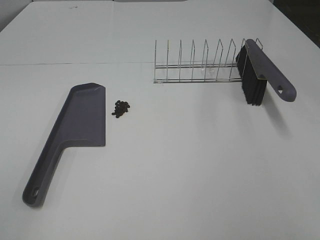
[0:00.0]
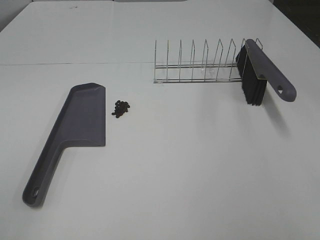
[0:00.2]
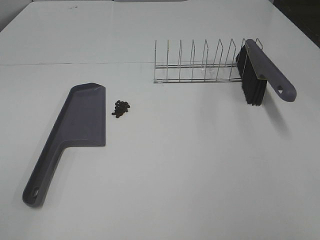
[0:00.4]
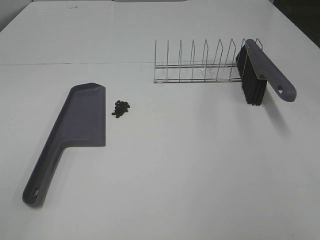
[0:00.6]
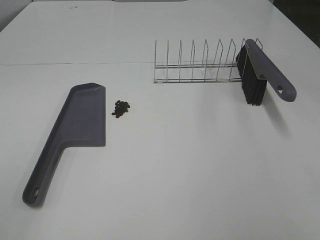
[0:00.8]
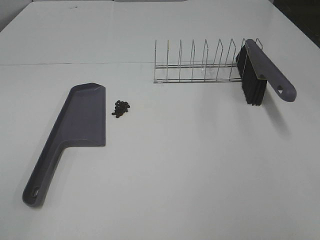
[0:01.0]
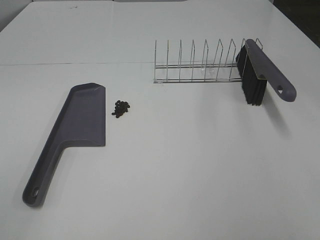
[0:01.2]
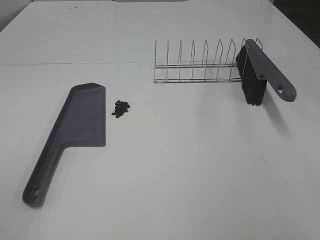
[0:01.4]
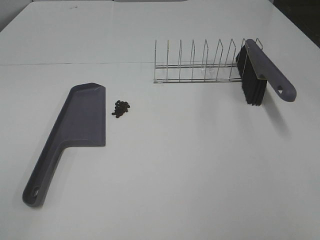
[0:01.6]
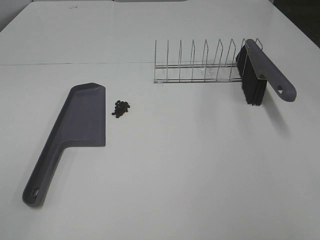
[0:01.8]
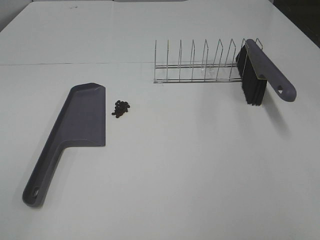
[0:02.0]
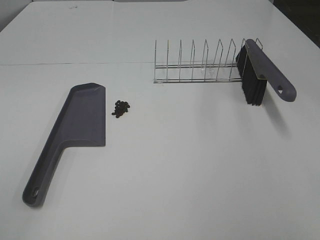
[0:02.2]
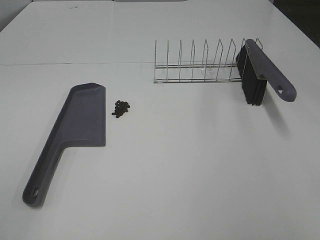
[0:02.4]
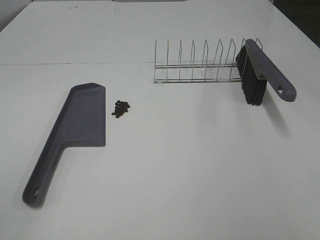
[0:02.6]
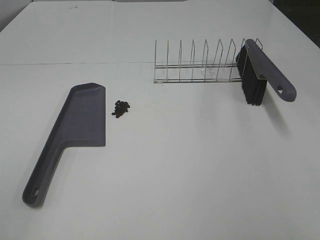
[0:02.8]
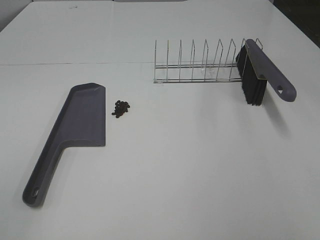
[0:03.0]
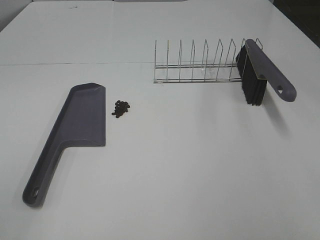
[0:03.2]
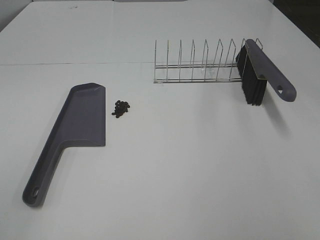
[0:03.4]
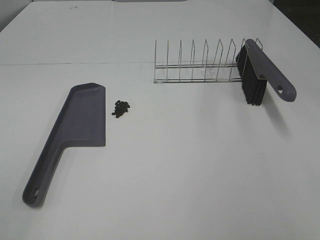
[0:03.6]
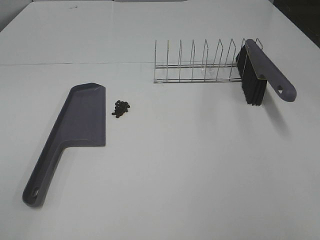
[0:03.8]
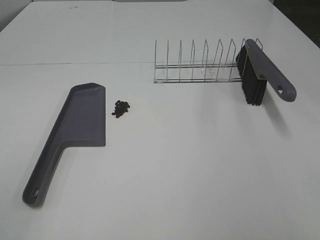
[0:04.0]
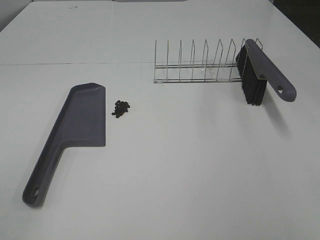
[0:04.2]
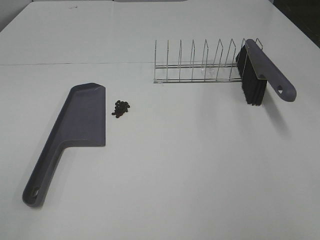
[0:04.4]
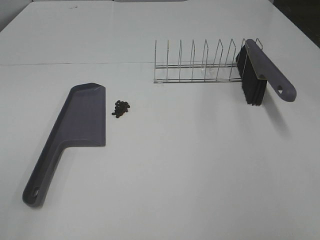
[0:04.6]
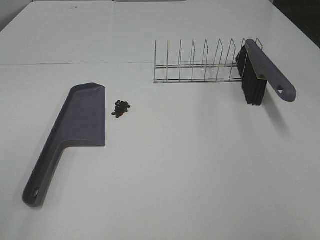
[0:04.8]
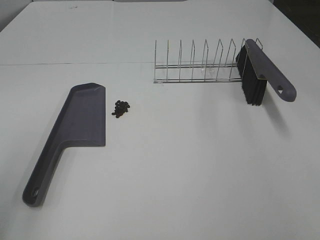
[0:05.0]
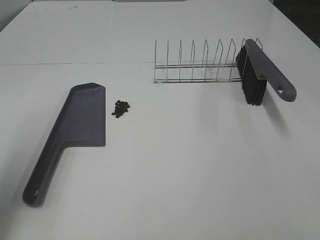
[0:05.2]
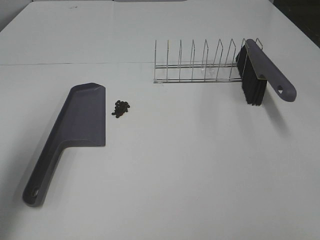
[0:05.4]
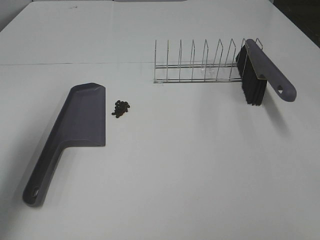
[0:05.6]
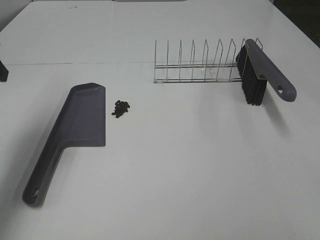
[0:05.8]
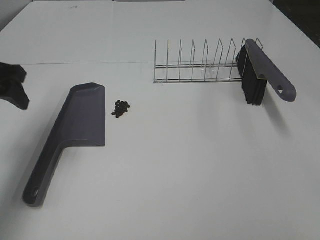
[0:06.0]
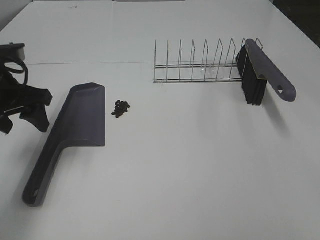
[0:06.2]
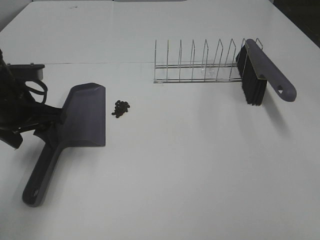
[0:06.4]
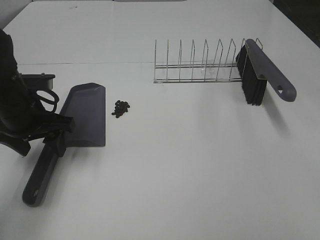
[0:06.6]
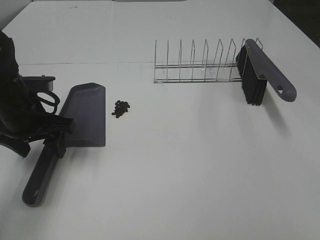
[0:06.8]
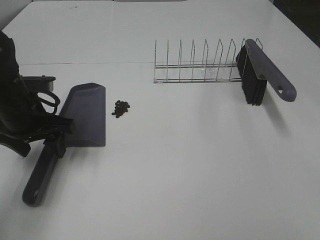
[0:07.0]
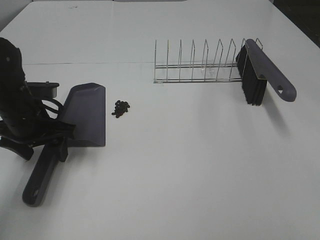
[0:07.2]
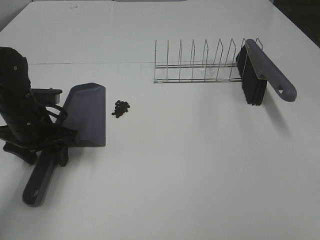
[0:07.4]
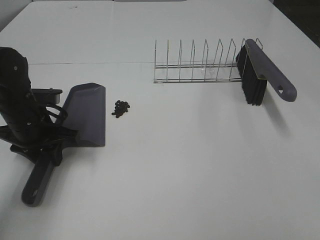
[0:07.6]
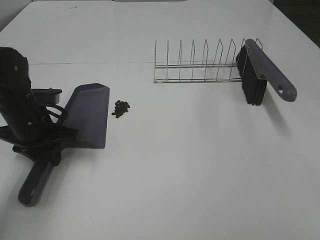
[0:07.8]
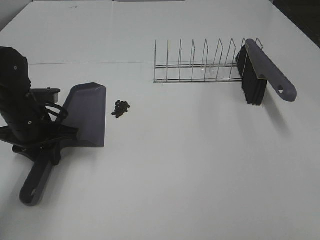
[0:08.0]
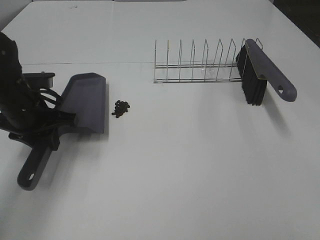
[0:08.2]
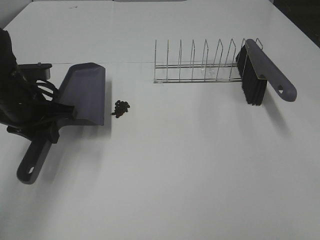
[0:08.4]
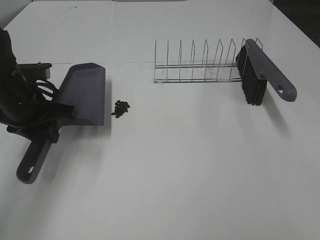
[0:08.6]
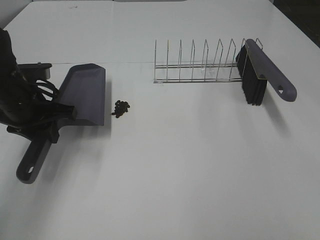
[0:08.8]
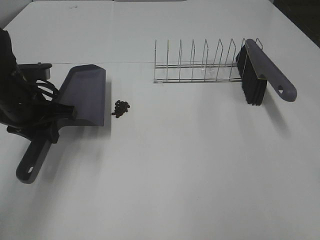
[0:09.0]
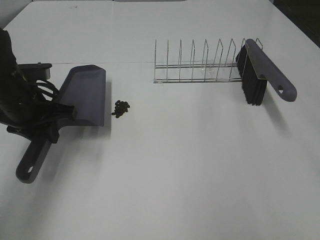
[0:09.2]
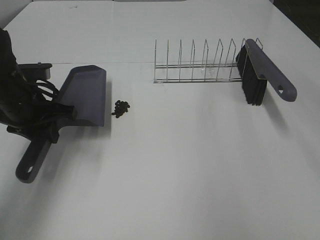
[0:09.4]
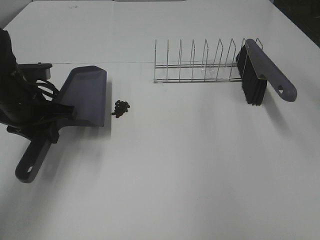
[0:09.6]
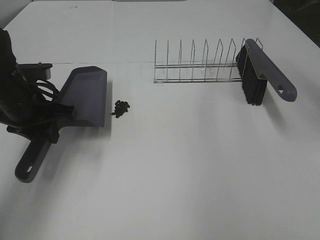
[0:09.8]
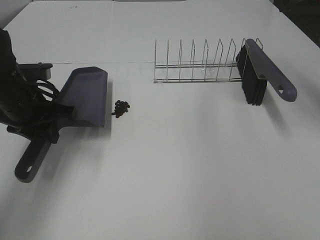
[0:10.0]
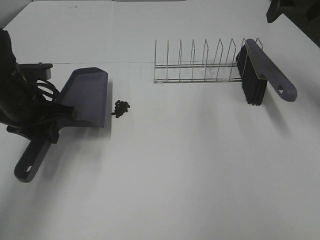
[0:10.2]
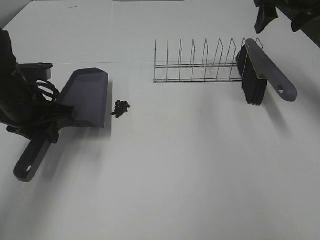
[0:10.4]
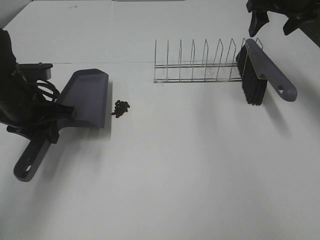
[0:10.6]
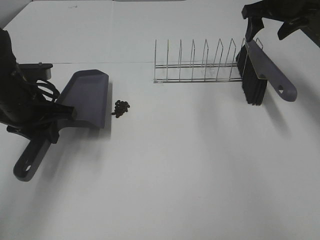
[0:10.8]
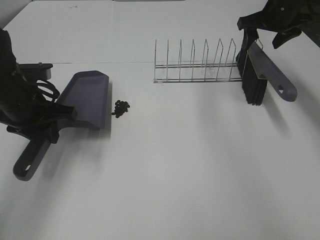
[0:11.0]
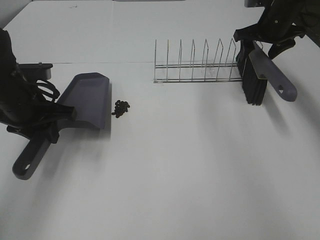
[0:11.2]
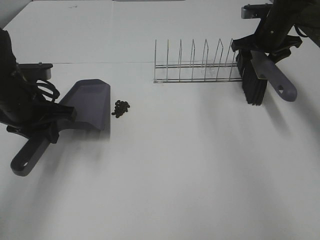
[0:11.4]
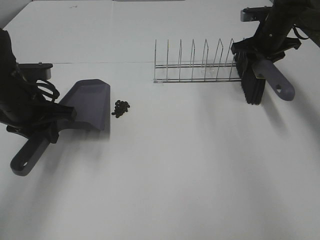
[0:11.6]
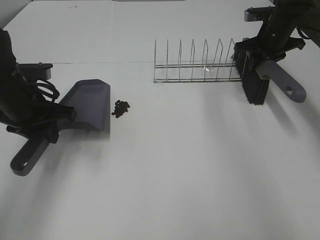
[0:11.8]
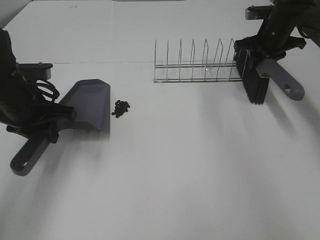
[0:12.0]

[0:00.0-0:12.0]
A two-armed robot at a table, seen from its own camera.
Task of the whole recording: Sweep Coffee Bean.
Step, 0:00.0 to 0:07.8: Left hand: grab the dustpan.
Step, 0:08.8 to 0:11.8: Right hand:grab the broom.
0:00.0 to 0:04.4: Neither gripper changes place.
0:04.4 to 0:06.0: The left gripper moves forward, roughly 30 cm.
0:06.0 to 0:07.6: The left gripper travels downward and to the right by approximately 15 cm, and closes up.
0:09.0 to 0:10.4: The right gripper shifts about 40 cm forward.
0:10.4 to 0:12.0: The right gripper is displaced downward and forward by about 15 cm, and closes.

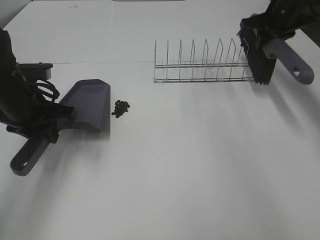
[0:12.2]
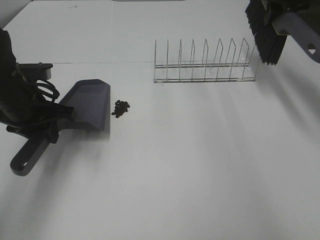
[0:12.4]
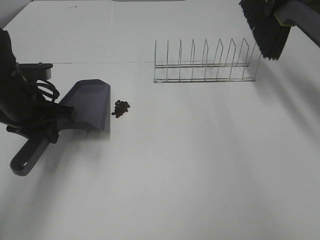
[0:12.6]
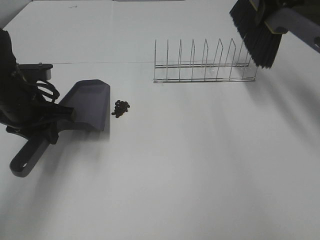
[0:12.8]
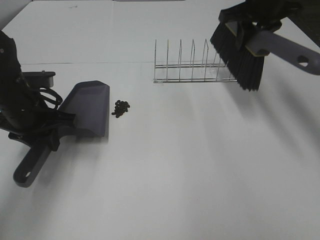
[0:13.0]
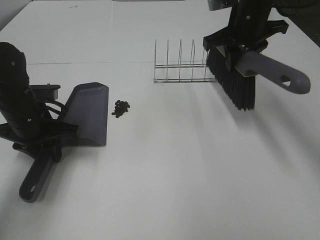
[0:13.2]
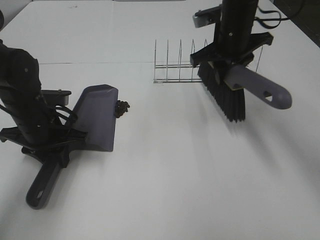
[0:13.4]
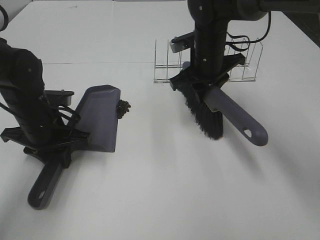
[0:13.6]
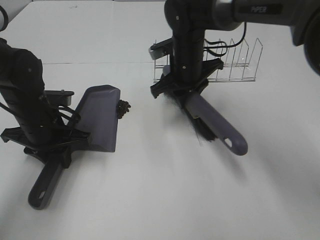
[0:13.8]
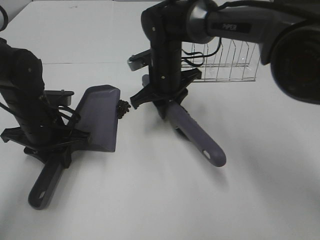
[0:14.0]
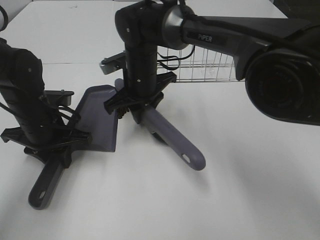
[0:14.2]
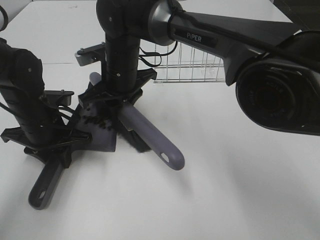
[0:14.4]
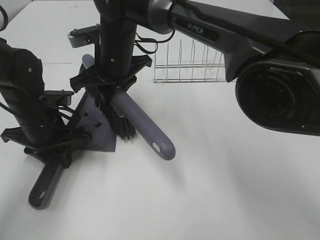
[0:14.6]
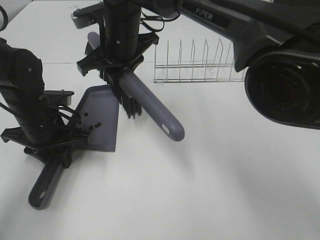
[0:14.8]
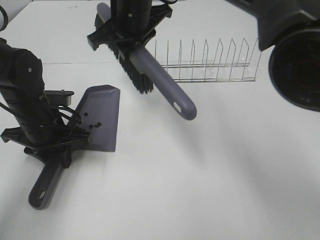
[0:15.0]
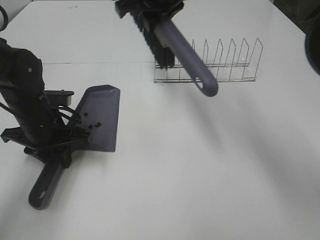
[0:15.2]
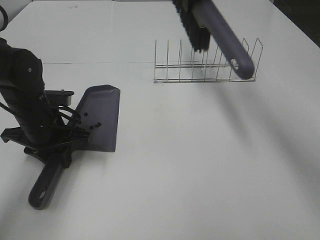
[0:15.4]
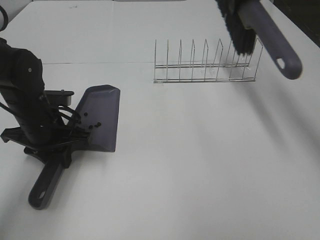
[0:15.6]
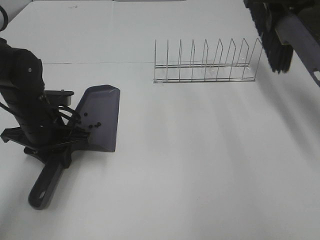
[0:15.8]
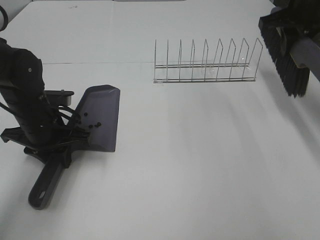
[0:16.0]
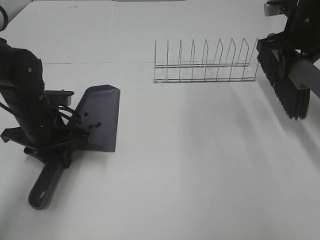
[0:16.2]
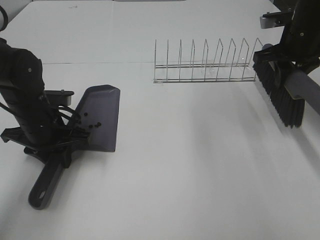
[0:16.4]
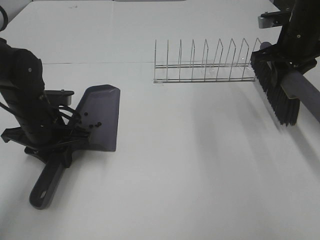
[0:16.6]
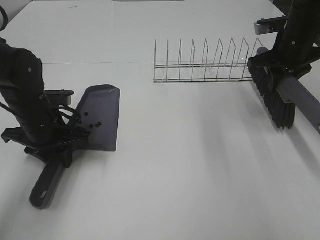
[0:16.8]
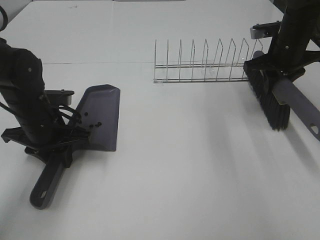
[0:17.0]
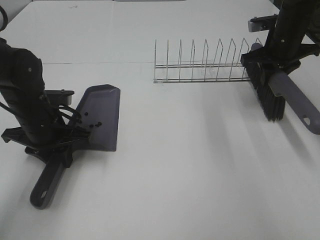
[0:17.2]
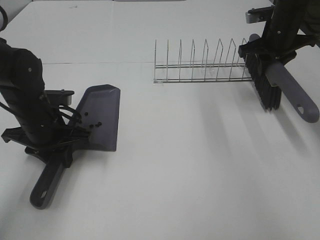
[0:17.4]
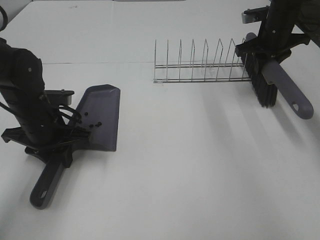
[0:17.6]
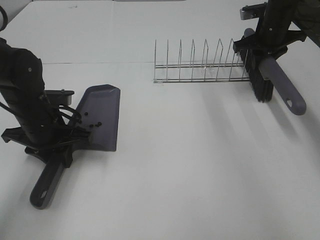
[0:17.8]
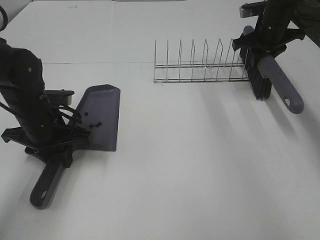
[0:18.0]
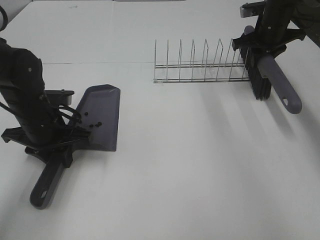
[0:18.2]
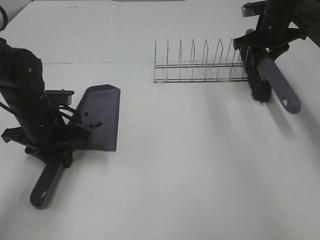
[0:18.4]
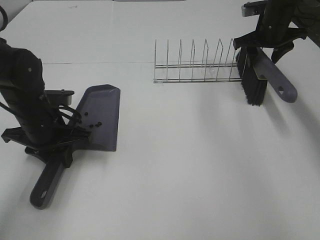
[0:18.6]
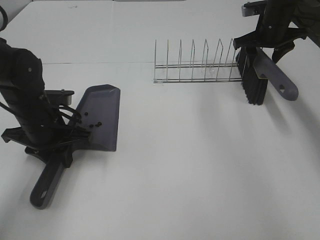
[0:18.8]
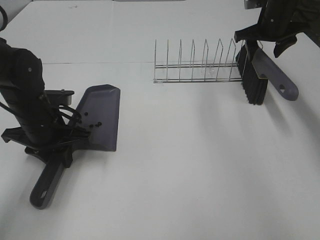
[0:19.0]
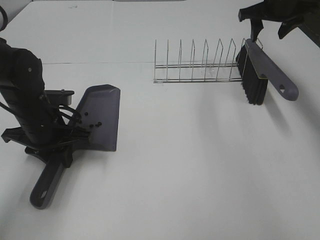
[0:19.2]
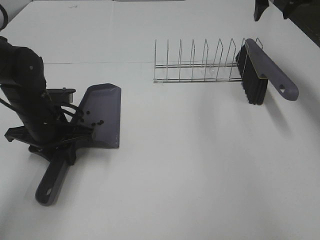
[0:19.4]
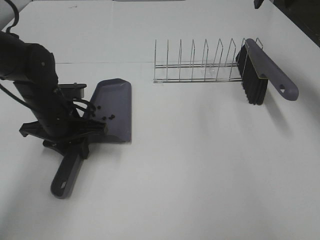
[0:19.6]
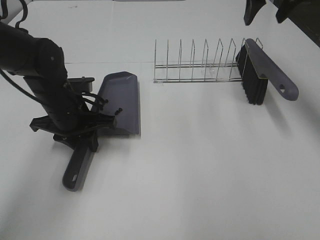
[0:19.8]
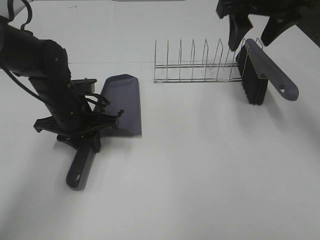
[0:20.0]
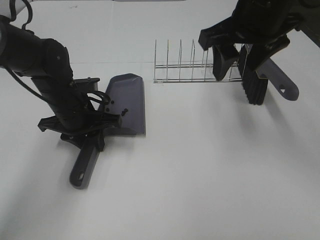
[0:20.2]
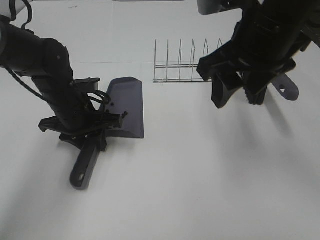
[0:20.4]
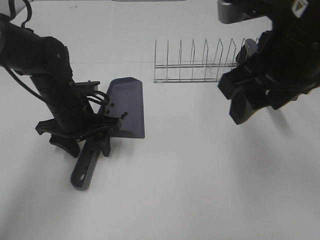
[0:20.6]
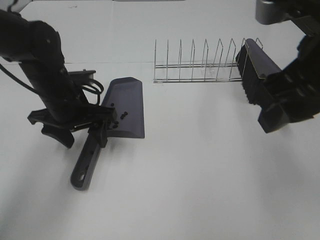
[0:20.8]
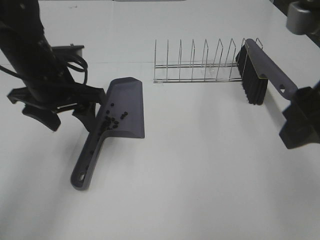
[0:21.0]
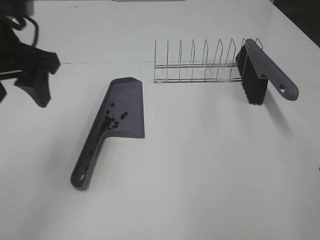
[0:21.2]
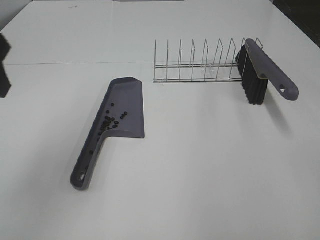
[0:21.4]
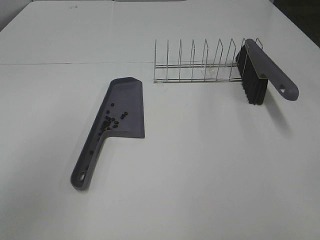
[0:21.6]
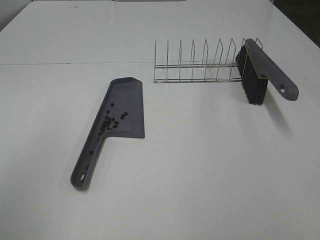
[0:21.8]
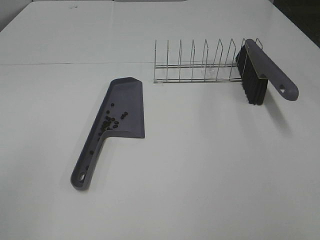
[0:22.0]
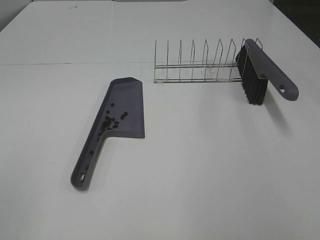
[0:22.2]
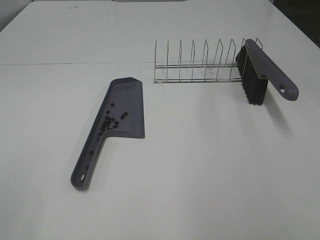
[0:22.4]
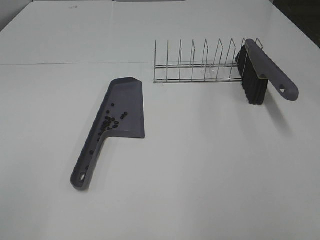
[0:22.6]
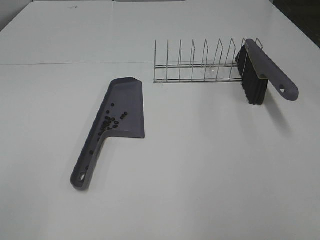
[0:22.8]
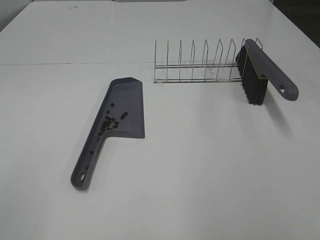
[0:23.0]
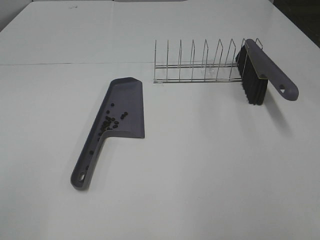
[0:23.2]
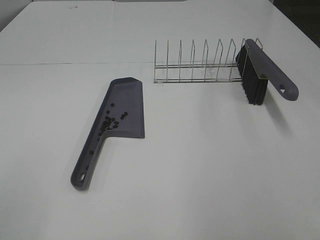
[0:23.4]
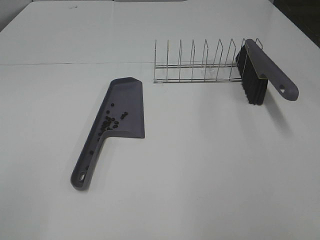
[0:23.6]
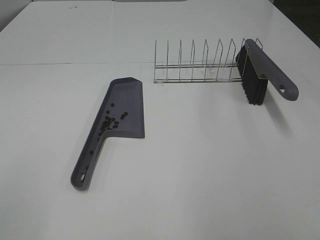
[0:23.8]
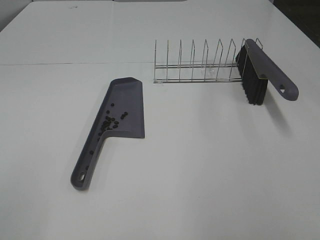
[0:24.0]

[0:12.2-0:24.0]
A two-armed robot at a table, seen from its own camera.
Task of the whole recording: Sweep Coffee Bean.
Step, 0:12.2 to 0:14.6: Right hand:sweep the coffee beans into the dustpan.
Step, 0:14.8 to 0:18.6: Right hand:place the broom on the rack.
0:12.2 to 0:13.6: The left gripper moves downward, some 5 cm. The right gripper is displaced to the left and backward by about 20 cm.
0:13.6 to 0:15.2: The right gripper goes about 15 cm upward and to the left.
0:15.2 to 0:16.6: The right gripper heads to the right, covering some 25 cm.
0:16.6 to 0:18.2: The right gripper moves forward, some 10 cm.
0:18.2 to 0:19.6: The right gripper heads upward, covering some 15 cm, and opens.
0:19.6 to 0:21.0: The right gripper is displaced backward by approximately 30 cm. The left gripper travels upward by approximately 10 cm, and opens.
0:21.0 to 0:22.6: The left gripper travels backward and to the left by approximately 35 cm; the right gripper travels backward and to the right by some 15 cm.
0:22.6 to 0:24.0: The two grippers keep their place.
